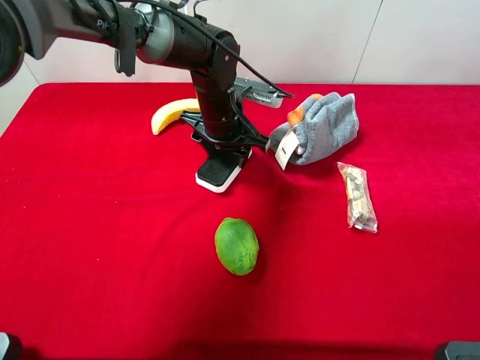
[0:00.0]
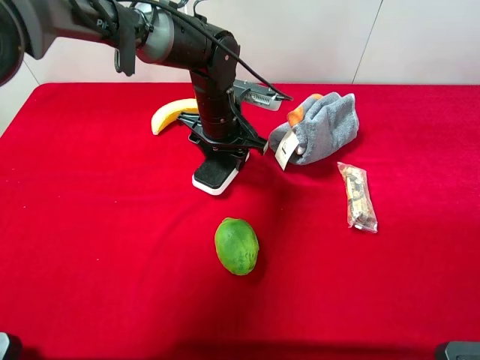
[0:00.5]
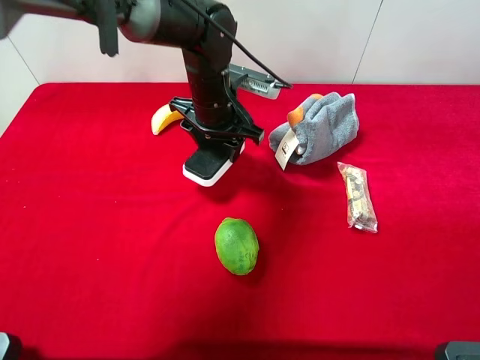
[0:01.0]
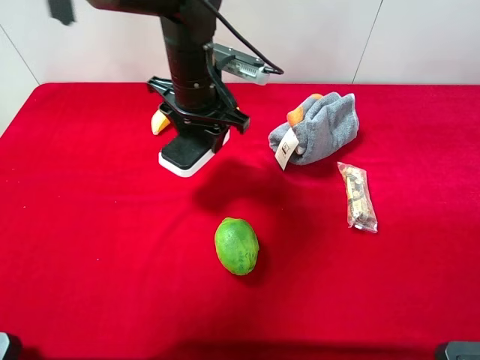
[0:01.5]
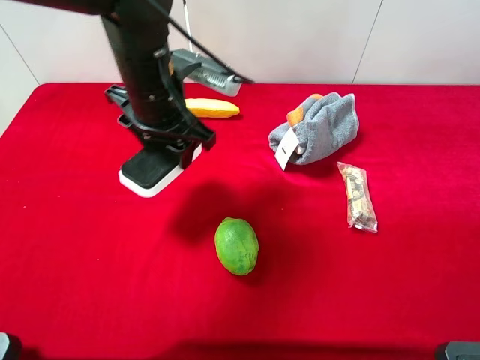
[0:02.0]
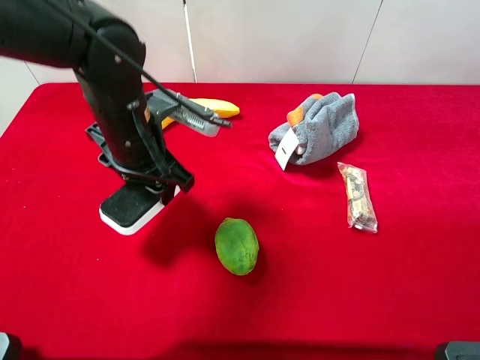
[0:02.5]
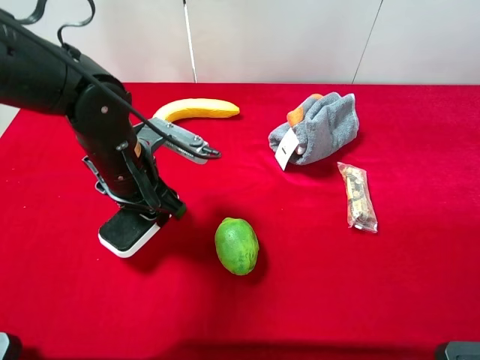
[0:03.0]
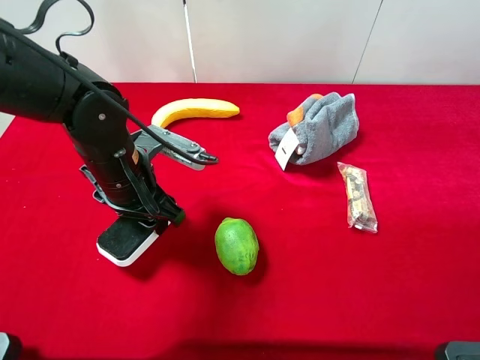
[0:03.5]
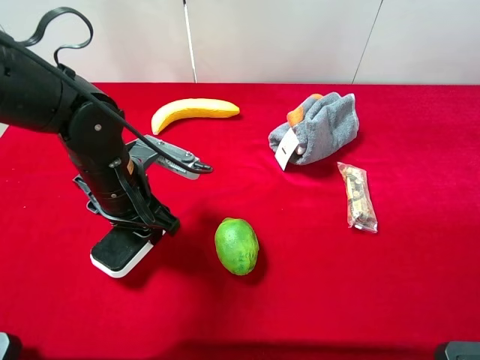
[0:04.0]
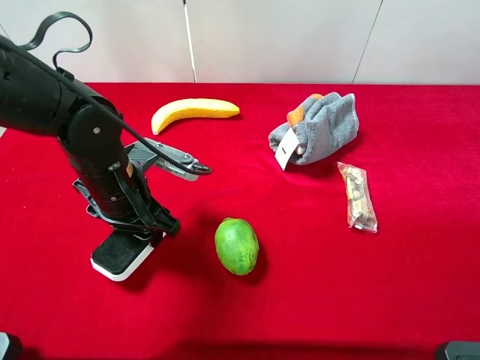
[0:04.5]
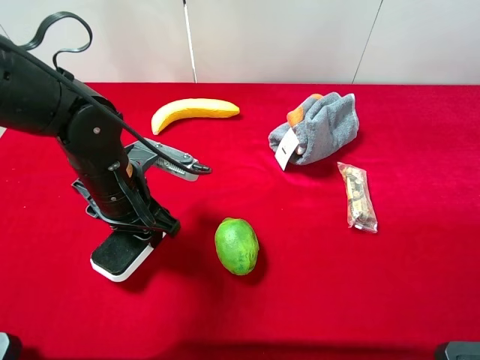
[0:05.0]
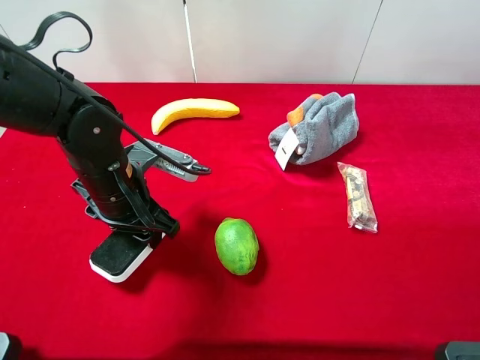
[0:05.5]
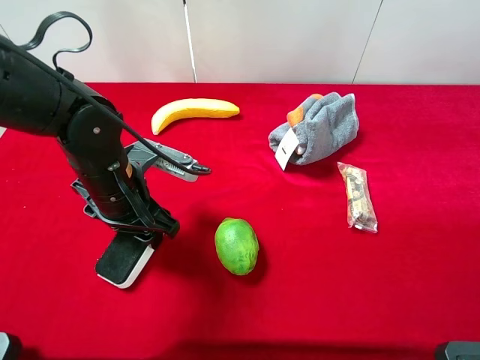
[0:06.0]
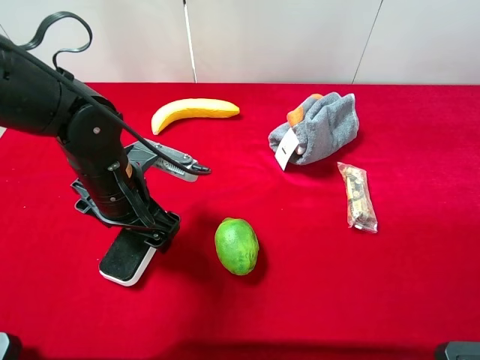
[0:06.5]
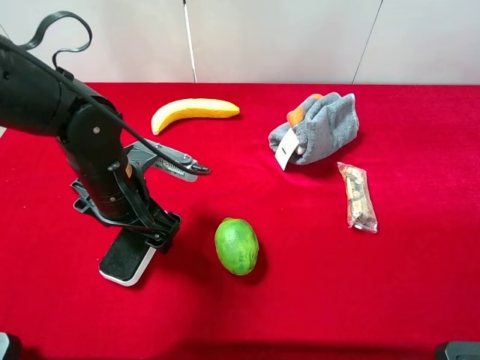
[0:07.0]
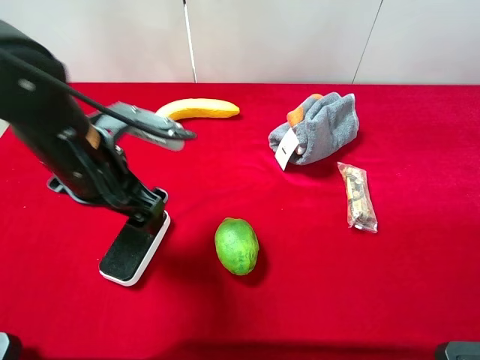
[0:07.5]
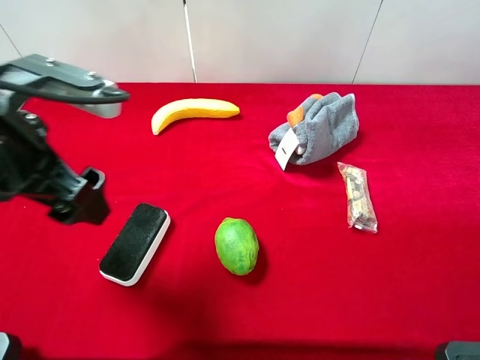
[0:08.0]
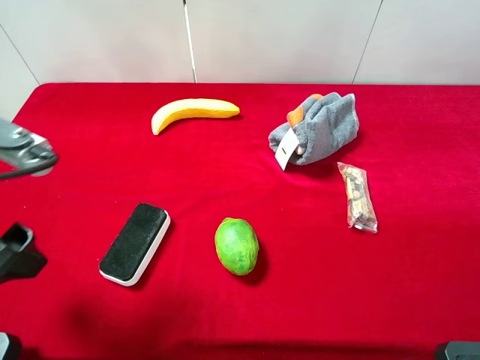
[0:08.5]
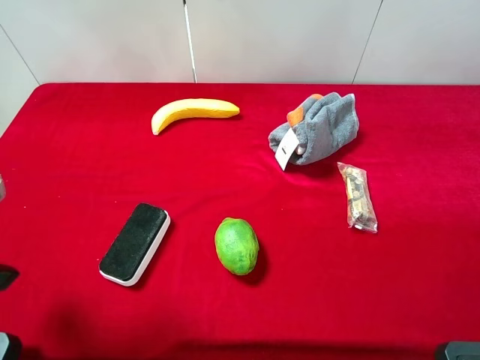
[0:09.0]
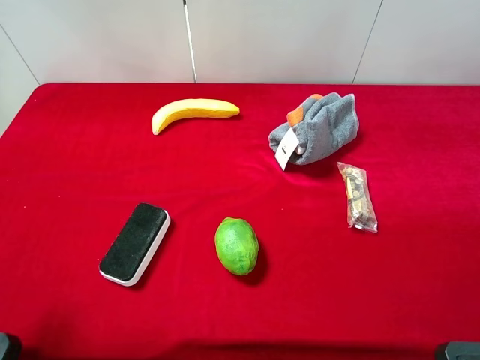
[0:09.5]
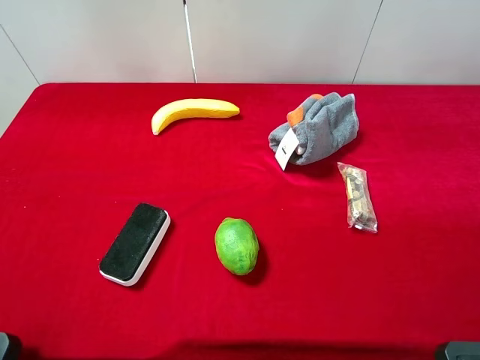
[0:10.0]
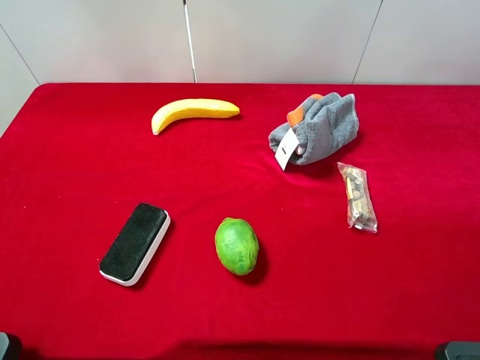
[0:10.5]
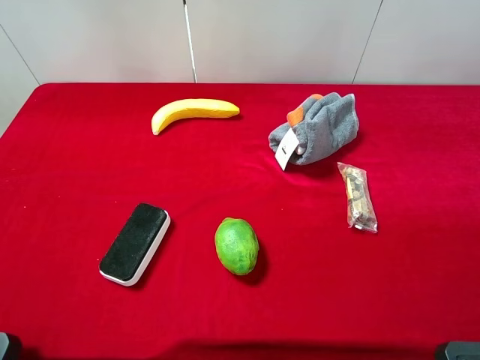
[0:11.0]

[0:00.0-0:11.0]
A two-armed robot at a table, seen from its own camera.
Task of the whole recording: the gripper move the object.
Step, 0:00.5 to 0:07.5: Place the white blackboard erasure on the table with the left gripper.
0:00.0 to 0:02.0: The left gripper travels upward, backward and to the left by approximately 15 cm.
0:02.0 to 0:03.5: The left gripper goes roughly 10 cm downward and backward.
0:03.5 to 0:05.5: The grippers make only small movements.
0:05.5 to 0:07.5: The left gripper is displaced upward by roughly 5 cm, and opens.
0:07.5 to 0:09.0: The left gripper travels backward, to the left and upward by about 15 cm.
0:09.0 to 0:11.0: The left gripper goes some 10 cm backward.
